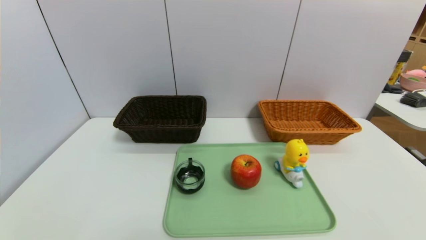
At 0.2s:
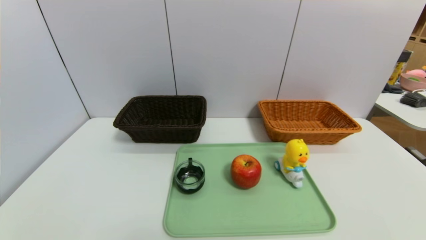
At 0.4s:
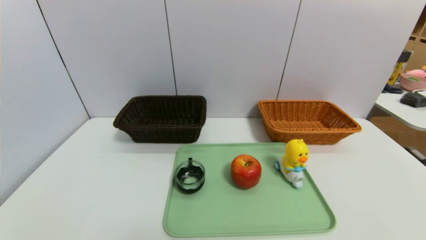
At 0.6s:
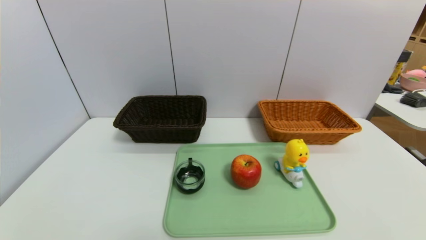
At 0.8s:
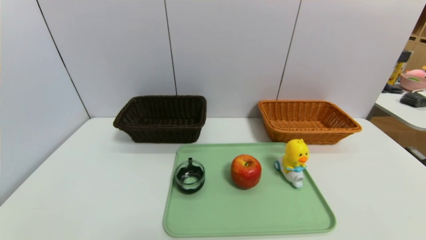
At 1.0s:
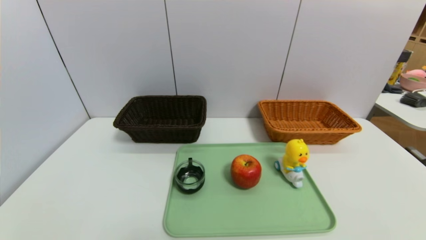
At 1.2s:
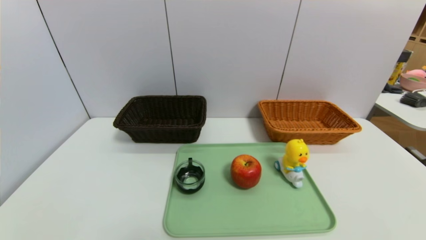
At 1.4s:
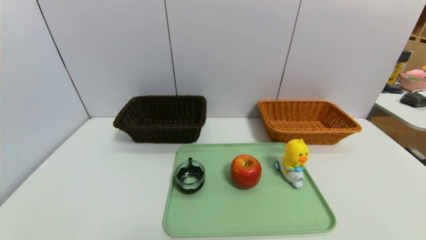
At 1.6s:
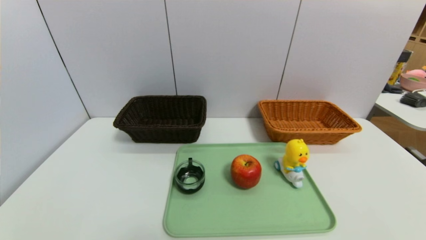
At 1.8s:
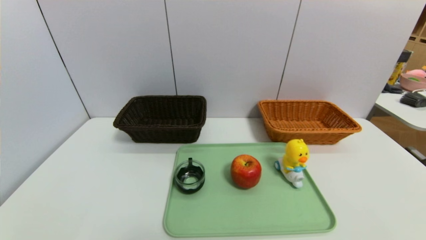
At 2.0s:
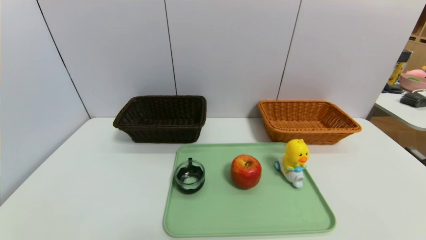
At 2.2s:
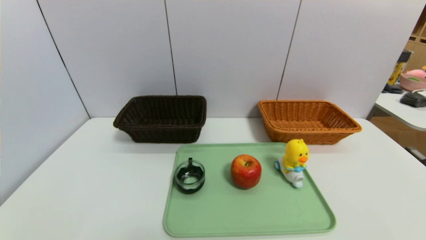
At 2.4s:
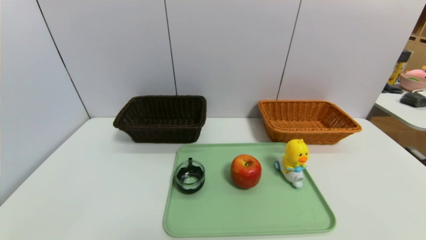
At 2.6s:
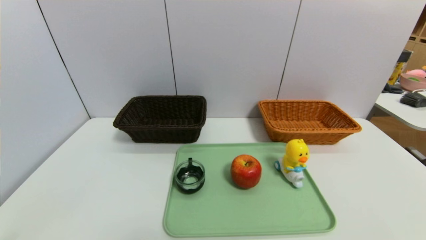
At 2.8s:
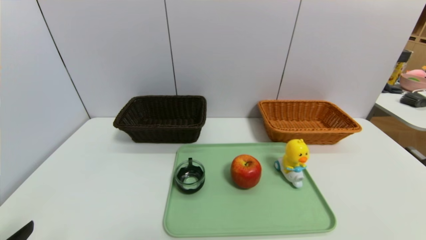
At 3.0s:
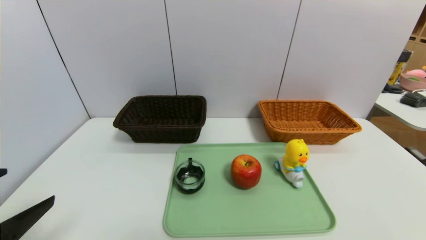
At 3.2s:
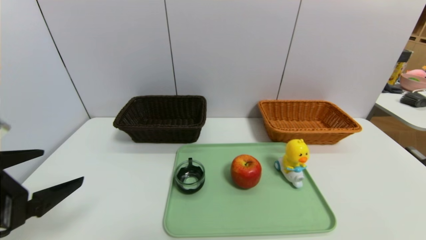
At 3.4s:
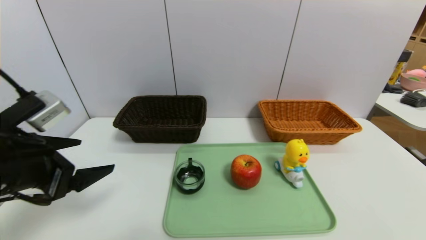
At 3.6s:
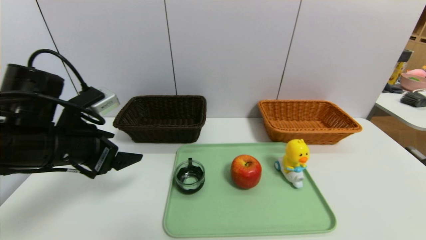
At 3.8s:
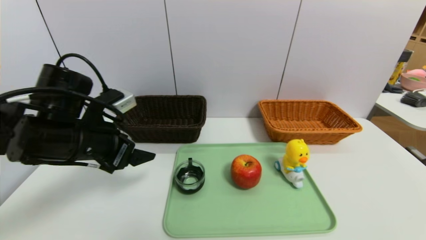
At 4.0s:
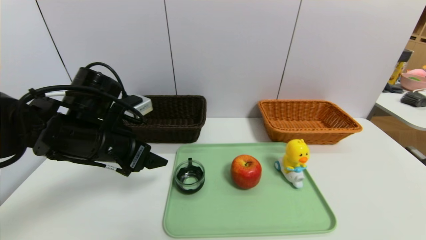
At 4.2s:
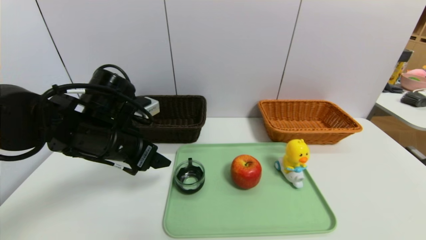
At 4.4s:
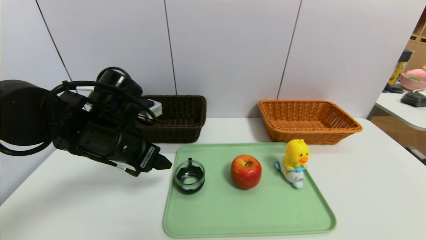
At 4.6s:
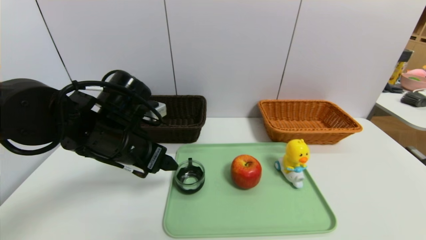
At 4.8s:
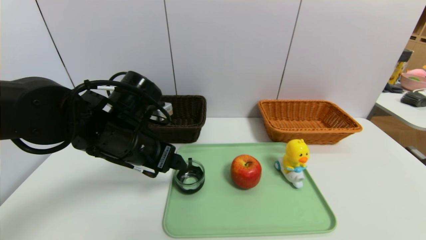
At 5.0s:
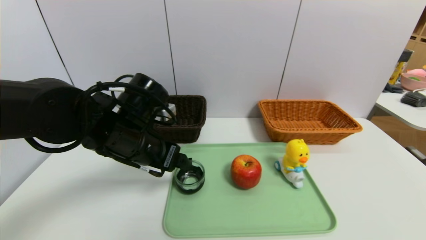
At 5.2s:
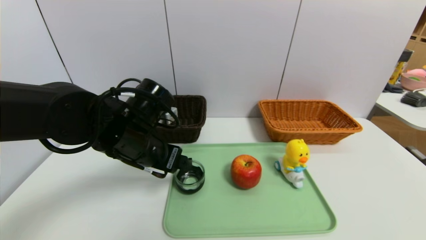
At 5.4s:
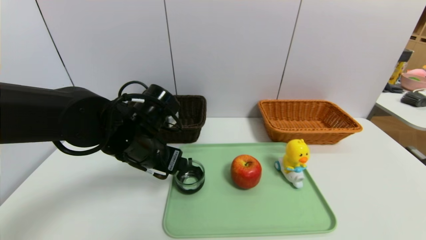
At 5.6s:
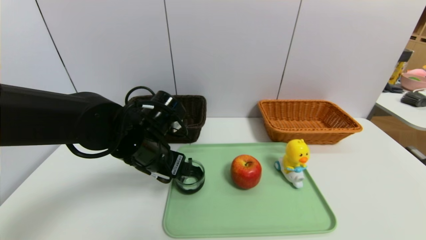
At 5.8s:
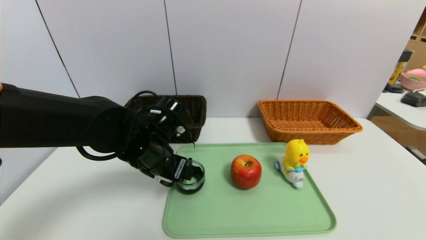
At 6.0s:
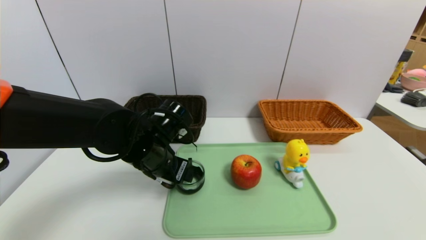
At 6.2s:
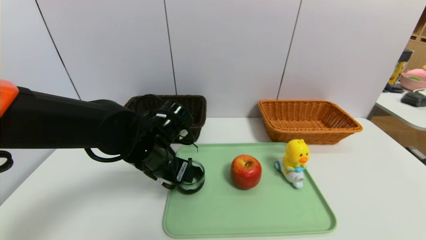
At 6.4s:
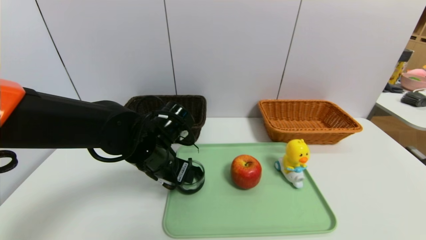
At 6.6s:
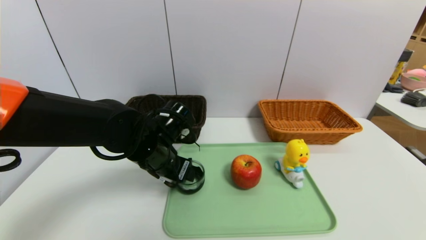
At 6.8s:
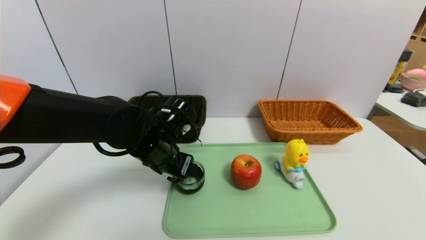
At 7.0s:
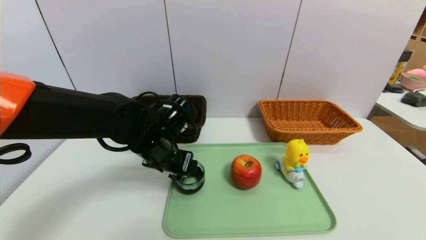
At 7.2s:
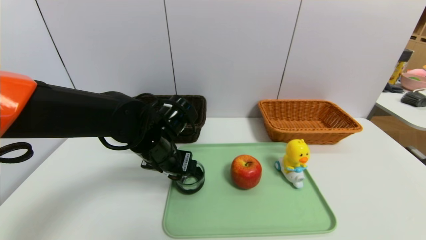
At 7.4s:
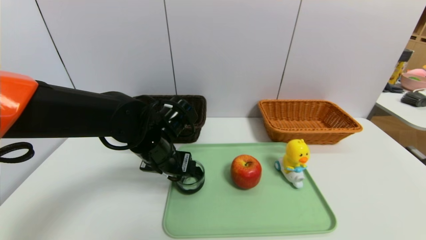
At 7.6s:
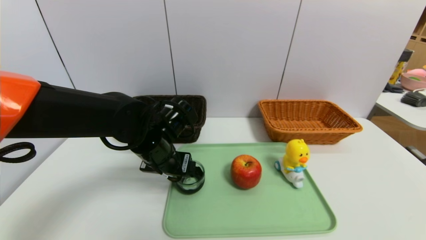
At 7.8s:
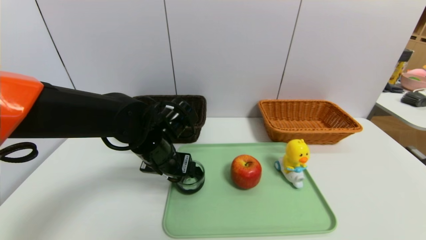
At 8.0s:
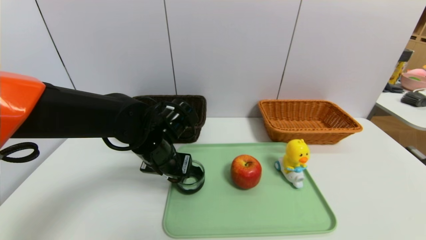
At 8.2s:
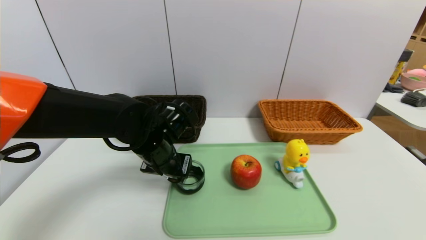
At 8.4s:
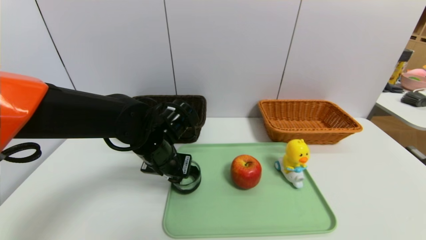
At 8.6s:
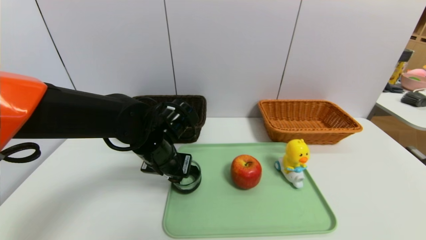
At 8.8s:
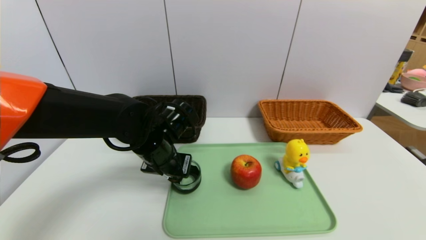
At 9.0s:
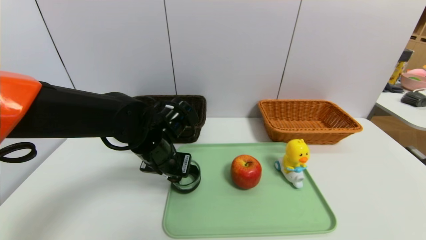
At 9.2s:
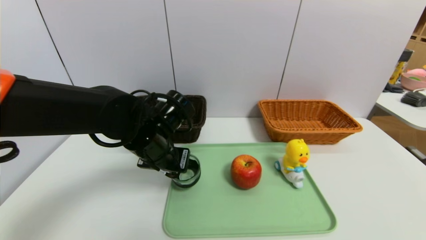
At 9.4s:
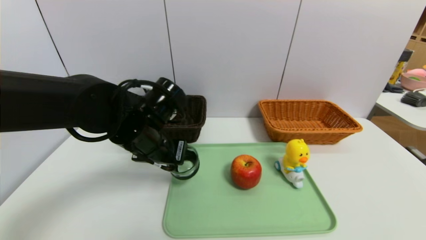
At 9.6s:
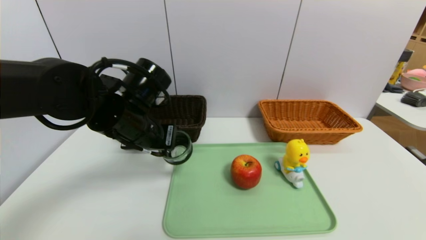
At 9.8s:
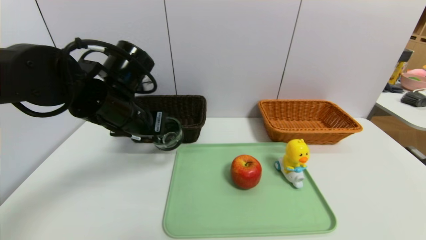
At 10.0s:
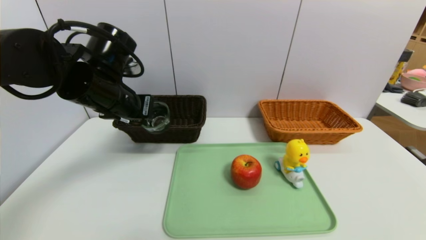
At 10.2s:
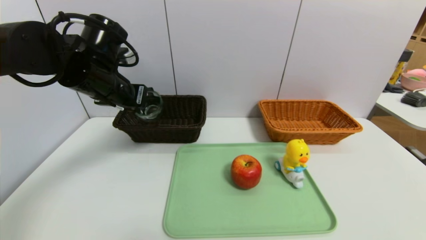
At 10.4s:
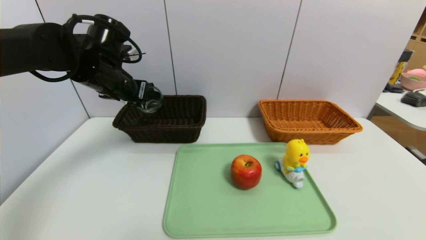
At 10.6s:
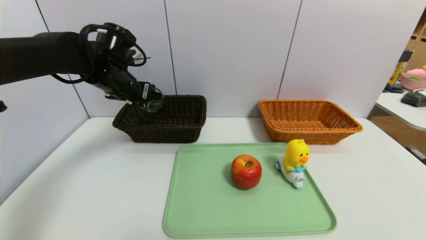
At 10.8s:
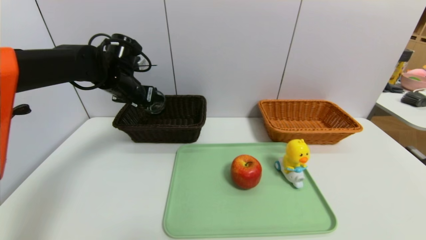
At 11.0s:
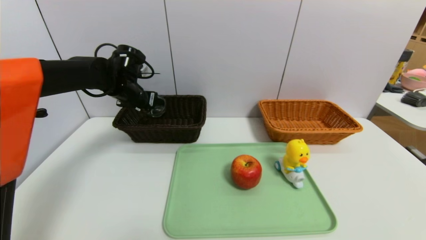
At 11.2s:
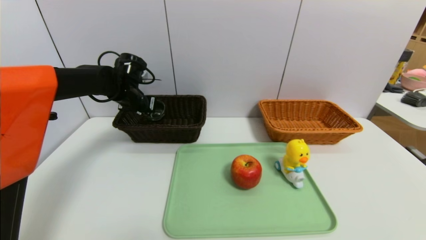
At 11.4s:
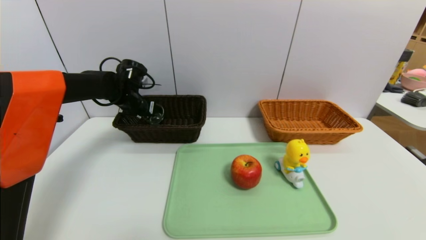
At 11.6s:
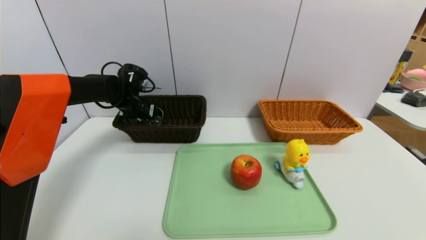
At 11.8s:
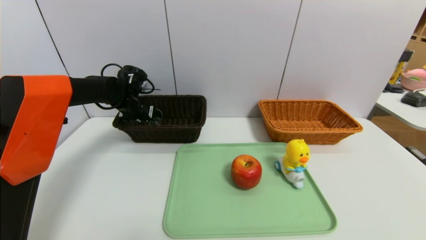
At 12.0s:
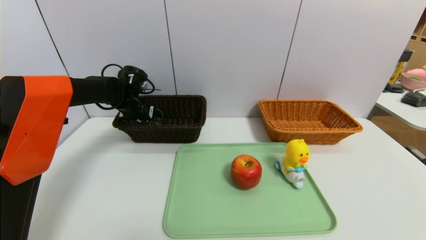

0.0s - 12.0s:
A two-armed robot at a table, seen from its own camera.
Task of the whole recording: place the food in the right basket with the right gripper, and place the non food items in the left basket with the left gripper.
0.0s - 1.6s: Both grippers stay put.
1.6s - 3.0s: The left gripper heads upward and forward, covering about 15 cm.
3.0s - 4.4s: The left gripper travels forward and to the right by roughly 20 cm.
4.4s - 6.0s: The left gripper heads to the right, covering some 5 cm.
6.0s - 7.6s: The grippers make only small movements.
7.6s - 9.0s: The left gripper closes its fingers.
9.0s - 10.4s: The left gripper moves upward, to the left and forward, roughly 15 cm.
10.4s - 12.0s: The left gripper heads downward and forward, covering about 15 cm.

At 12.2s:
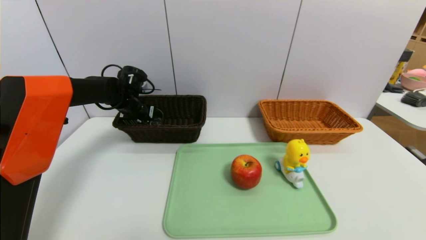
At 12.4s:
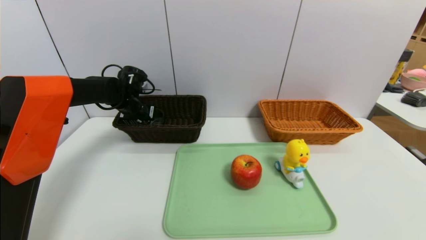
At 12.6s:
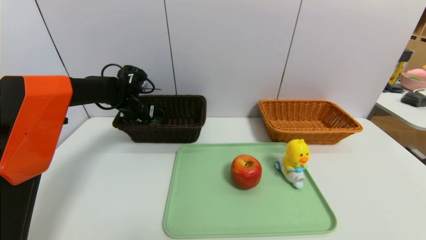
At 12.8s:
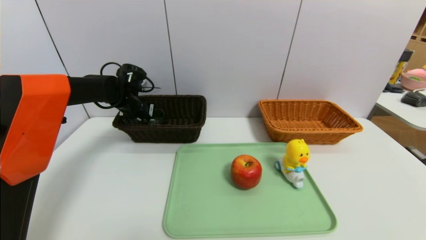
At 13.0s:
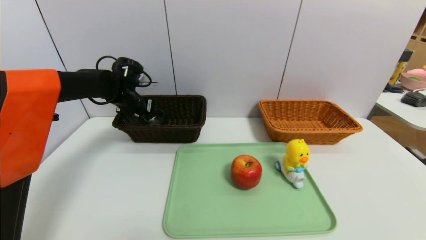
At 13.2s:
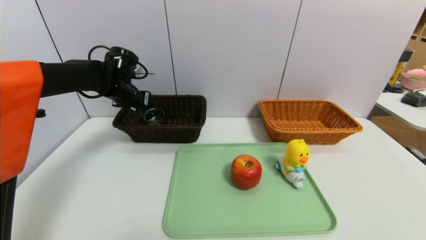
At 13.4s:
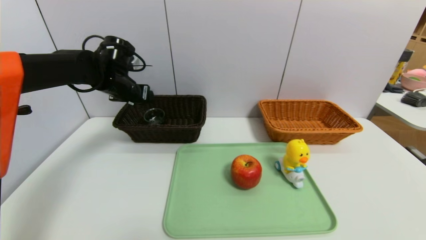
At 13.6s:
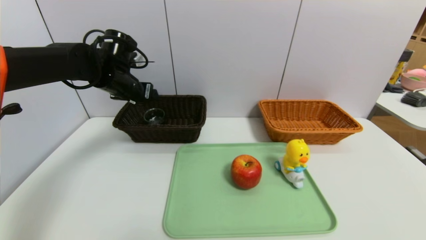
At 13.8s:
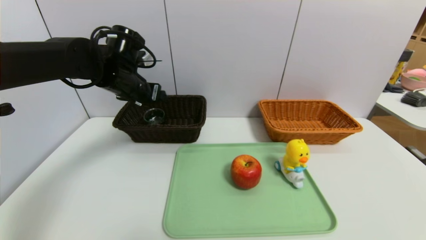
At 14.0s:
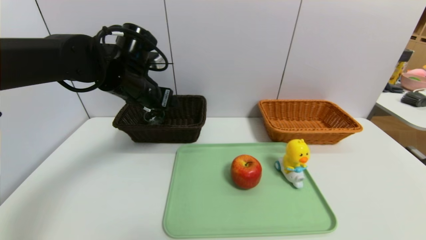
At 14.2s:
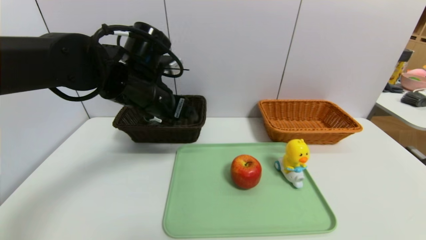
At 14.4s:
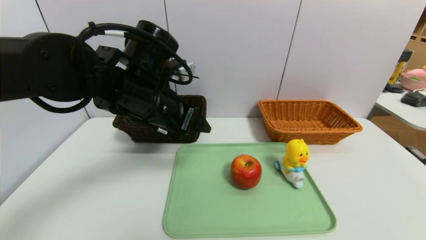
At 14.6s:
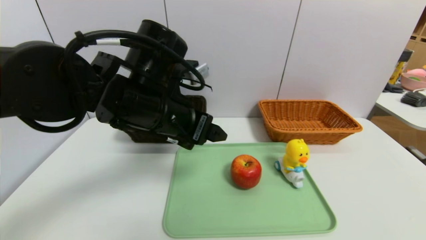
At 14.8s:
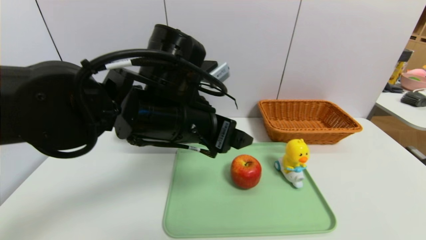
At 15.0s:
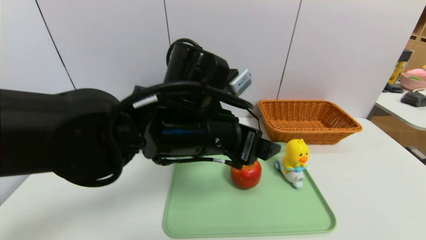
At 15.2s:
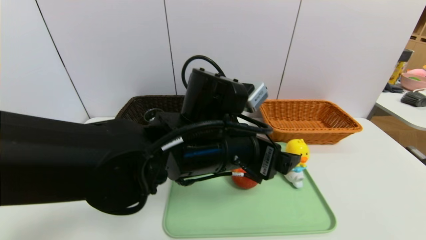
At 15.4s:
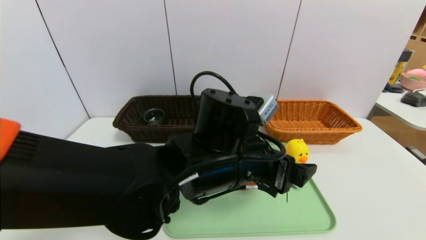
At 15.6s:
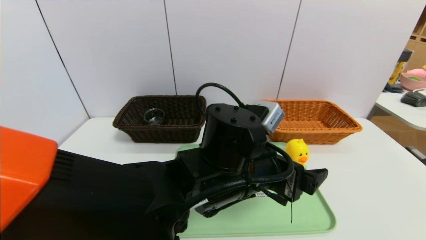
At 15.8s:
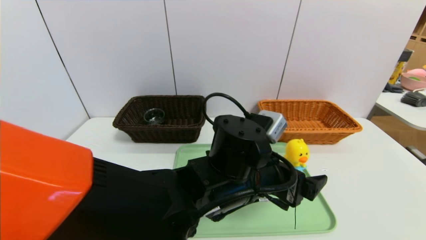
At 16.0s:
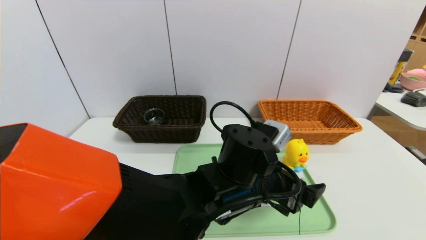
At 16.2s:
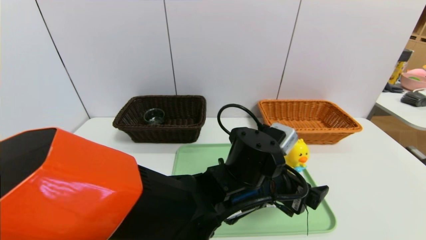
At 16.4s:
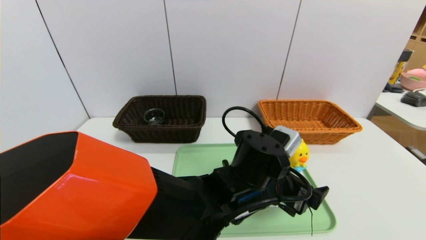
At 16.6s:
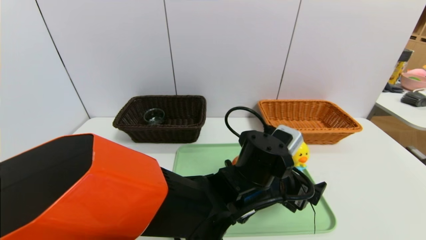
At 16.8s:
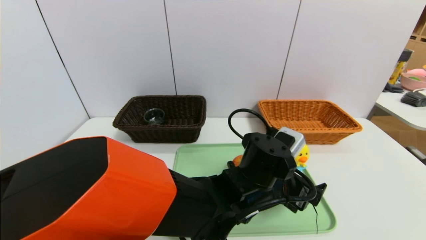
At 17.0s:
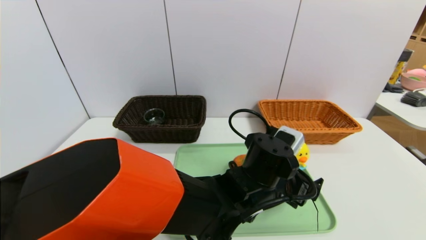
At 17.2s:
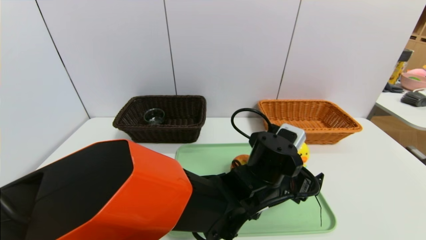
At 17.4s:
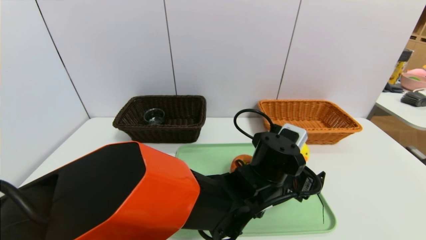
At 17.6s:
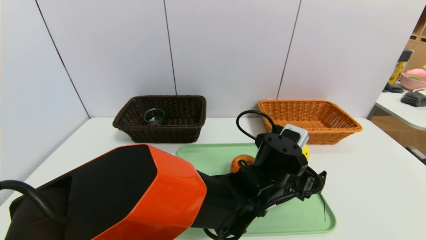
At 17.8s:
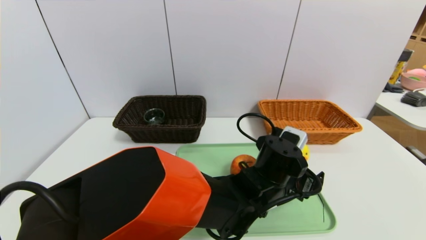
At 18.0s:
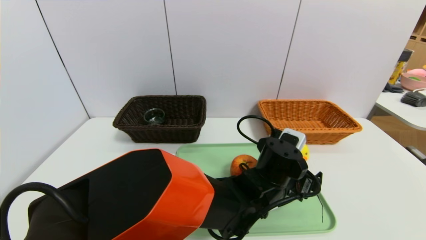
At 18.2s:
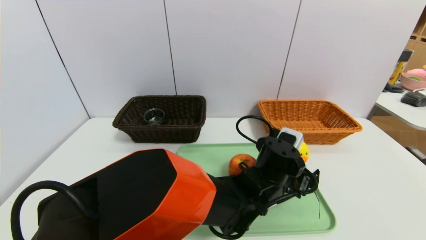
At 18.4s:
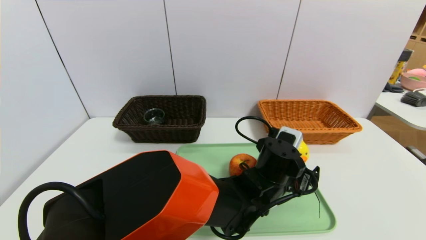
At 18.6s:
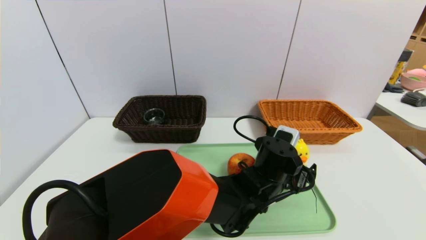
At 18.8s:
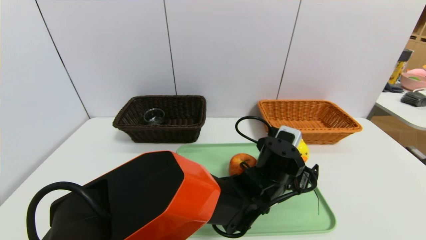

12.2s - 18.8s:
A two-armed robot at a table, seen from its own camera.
Task of the whole recording: place the food in the right basket with the right gripper, and place the non food items in the left basket with the left gripper.
12.2s - 13.8s: The left gripper is displaced upward and backward by about 15 cm, and opens.
13.8s - 15.4s: The left gripper shifts about 25 cm to the right and backward.
15.4s - 17.2s: The left gripper is displaced to the right and downward by about 10 cm.
17.2s - 18.8s: The grippers move only a little.
